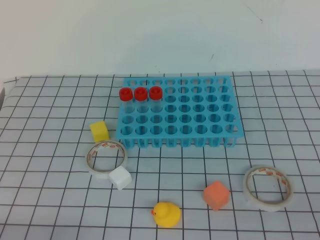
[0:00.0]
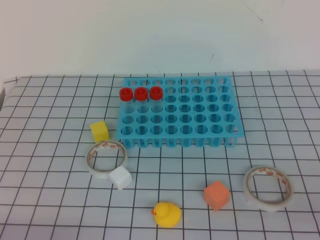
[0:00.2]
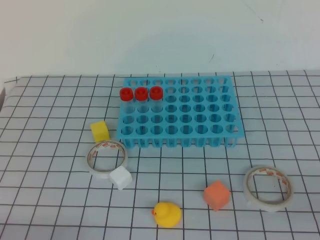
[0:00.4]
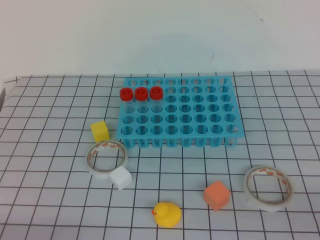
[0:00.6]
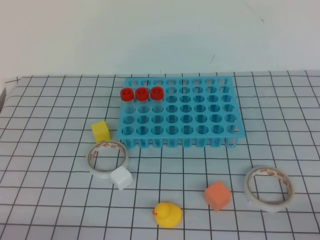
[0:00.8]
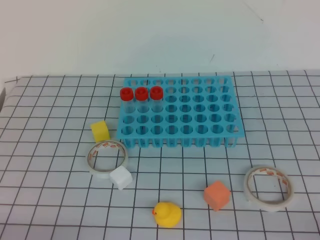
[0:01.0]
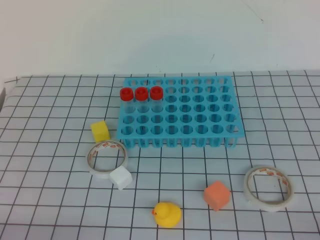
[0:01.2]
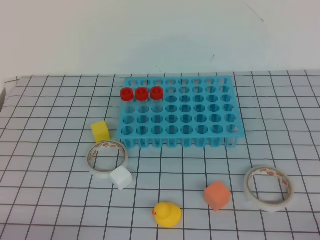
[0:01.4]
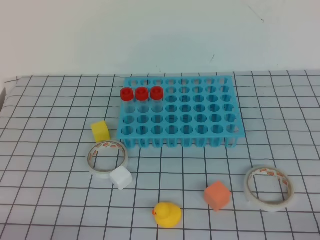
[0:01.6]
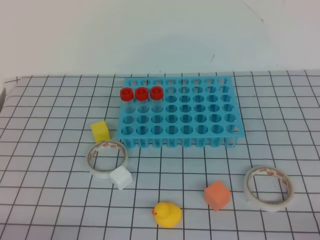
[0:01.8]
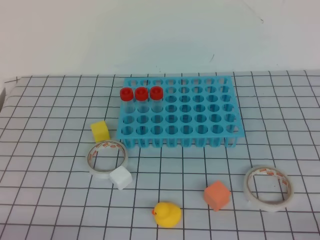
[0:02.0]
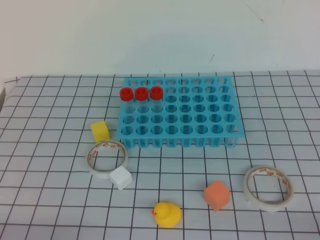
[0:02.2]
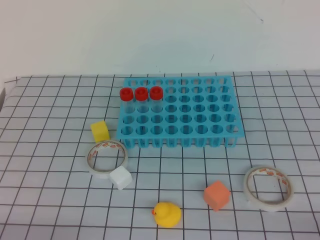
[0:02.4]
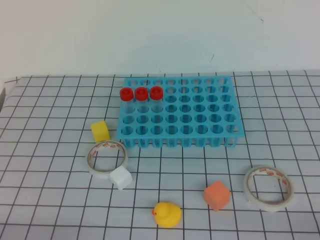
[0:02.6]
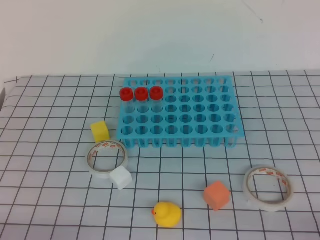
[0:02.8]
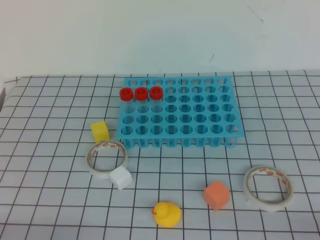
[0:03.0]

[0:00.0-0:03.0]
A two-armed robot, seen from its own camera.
0:00.0 to 0:01.6: The right gripper goes approximately 10 cm downward.
